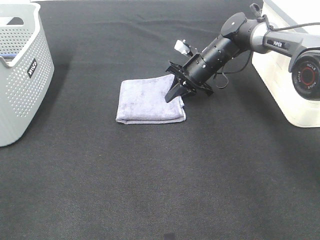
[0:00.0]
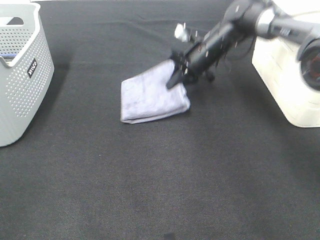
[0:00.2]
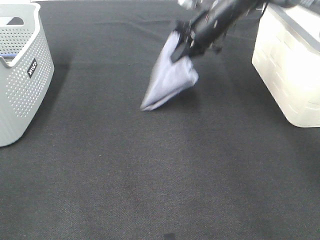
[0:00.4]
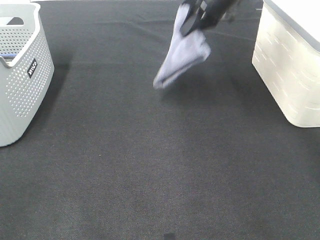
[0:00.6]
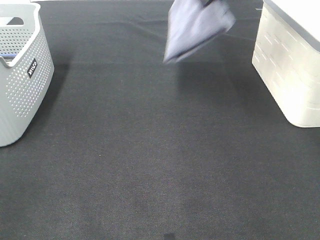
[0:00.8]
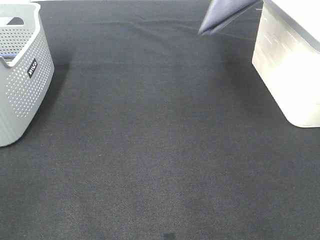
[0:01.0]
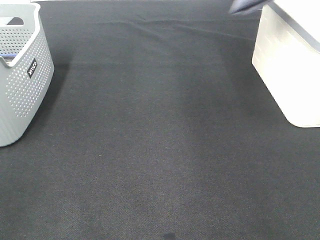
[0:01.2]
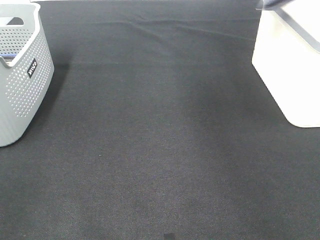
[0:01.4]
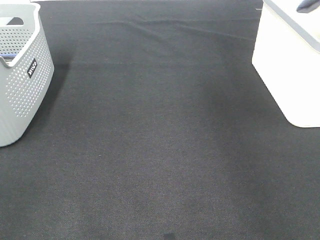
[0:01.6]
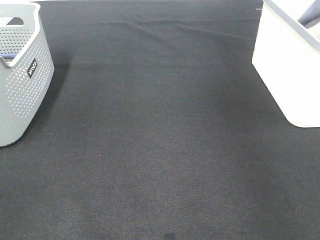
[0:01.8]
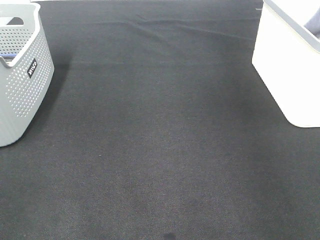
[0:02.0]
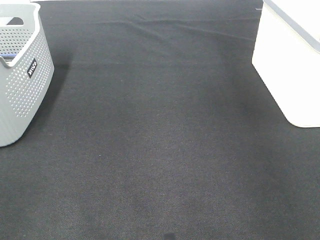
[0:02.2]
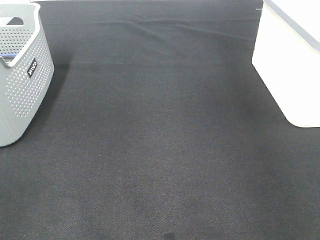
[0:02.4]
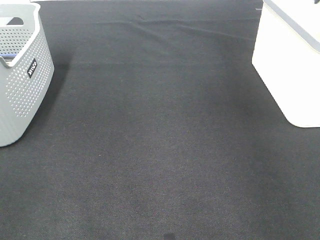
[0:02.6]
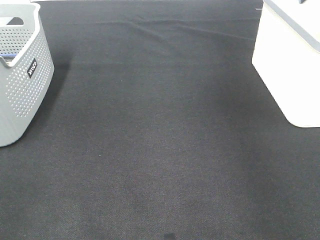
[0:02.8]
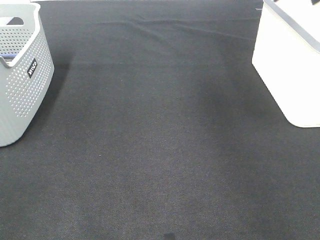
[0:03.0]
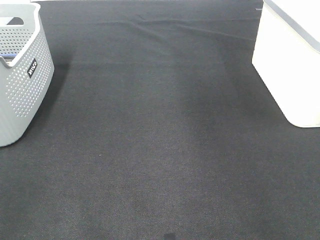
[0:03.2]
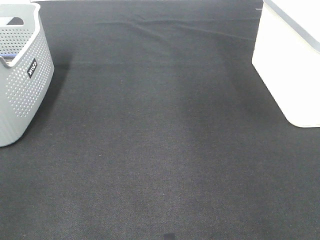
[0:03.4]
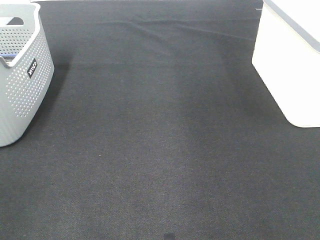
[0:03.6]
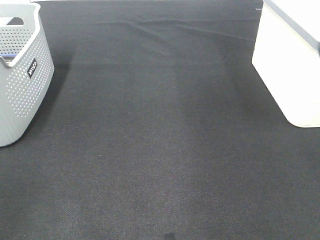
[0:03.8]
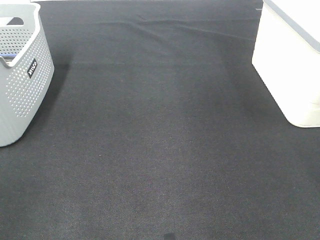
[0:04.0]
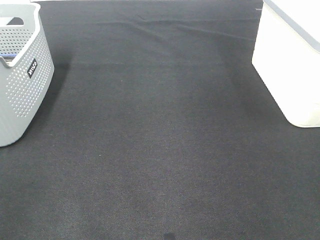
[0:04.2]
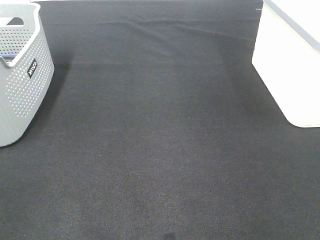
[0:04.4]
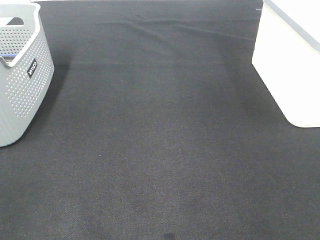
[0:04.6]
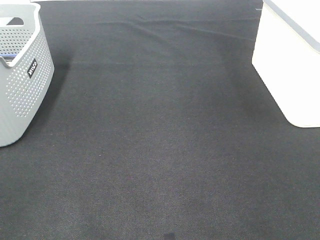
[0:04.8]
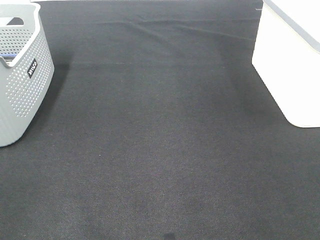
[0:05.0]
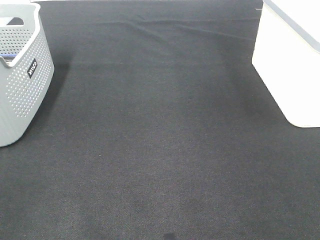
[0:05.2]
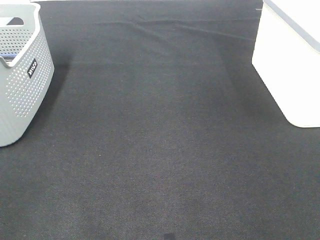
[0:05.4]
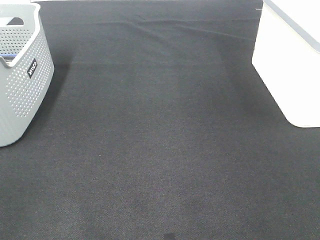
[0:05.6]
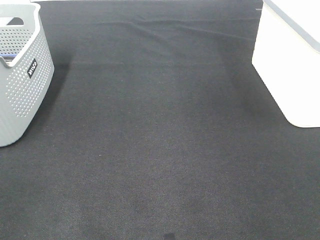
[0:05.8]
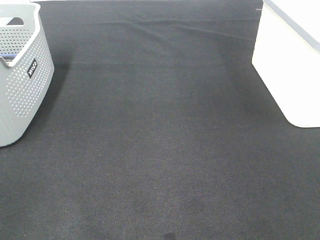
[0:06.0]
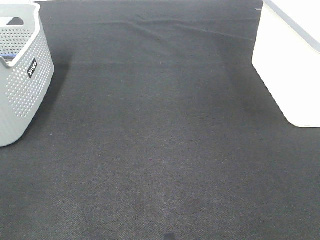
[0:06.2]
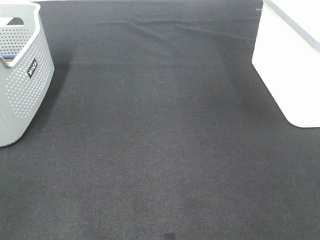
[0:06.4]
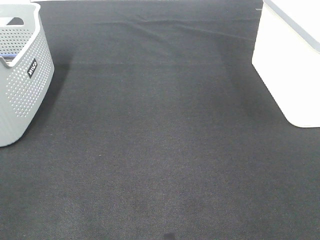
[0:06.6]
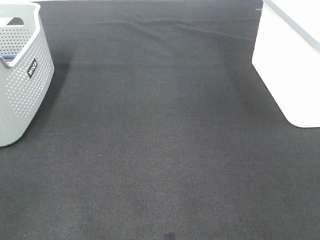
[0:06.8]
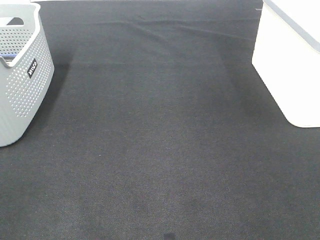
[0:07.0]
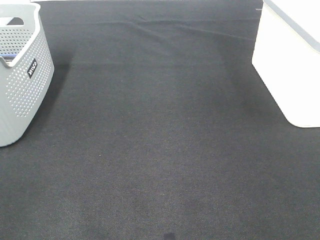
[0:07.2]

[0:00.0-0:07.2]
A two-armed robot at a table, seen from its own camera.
Step, 0:00.2 to 0:02.4: Right hand: place the grey towel in right basket.
0:00.0 to 0:01.4: The right gripper is displaced upward and to the right by approximately 40 cm.

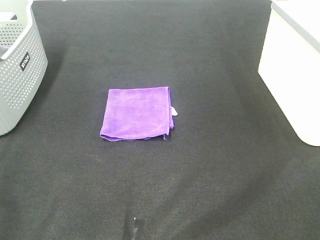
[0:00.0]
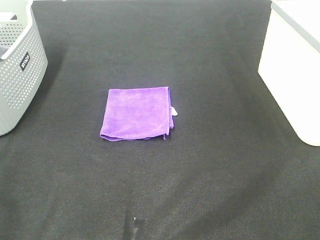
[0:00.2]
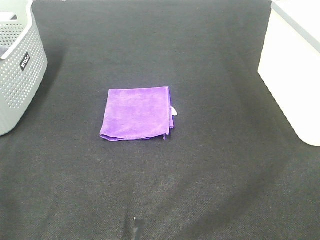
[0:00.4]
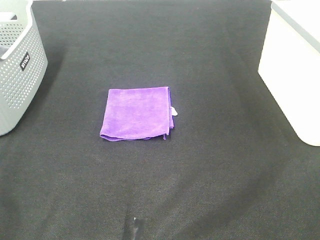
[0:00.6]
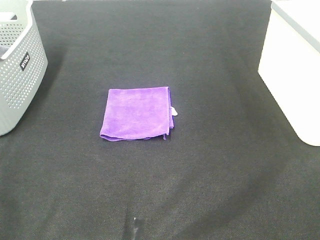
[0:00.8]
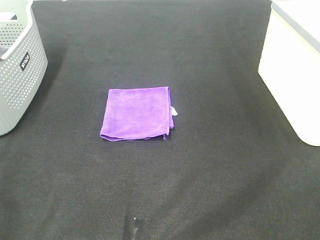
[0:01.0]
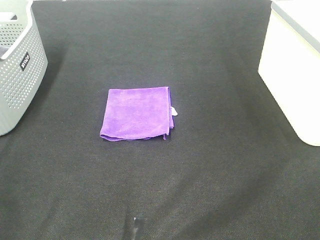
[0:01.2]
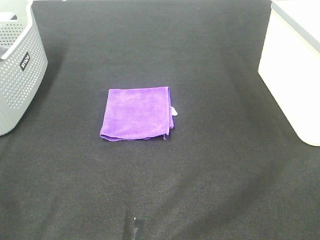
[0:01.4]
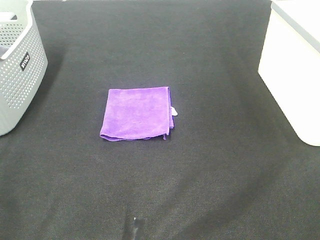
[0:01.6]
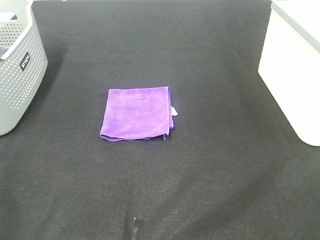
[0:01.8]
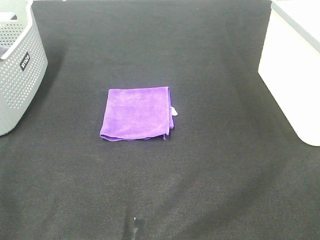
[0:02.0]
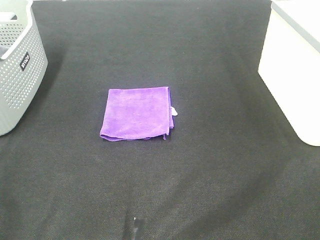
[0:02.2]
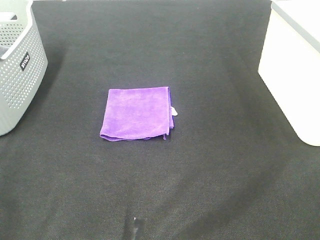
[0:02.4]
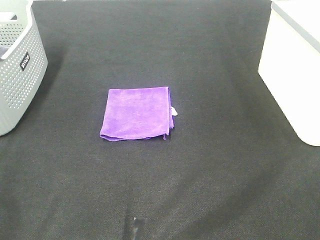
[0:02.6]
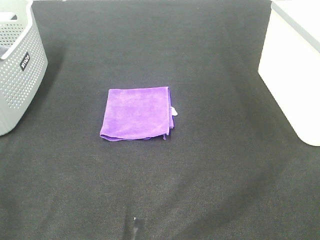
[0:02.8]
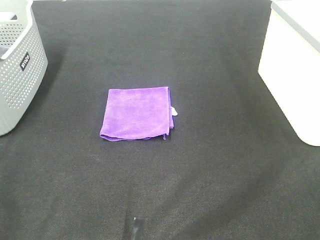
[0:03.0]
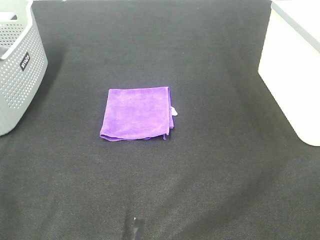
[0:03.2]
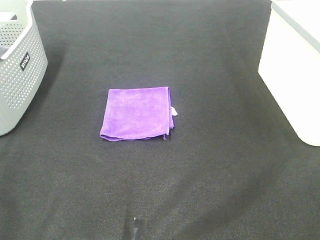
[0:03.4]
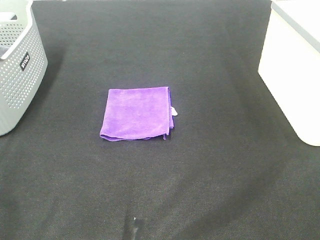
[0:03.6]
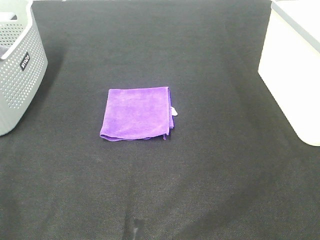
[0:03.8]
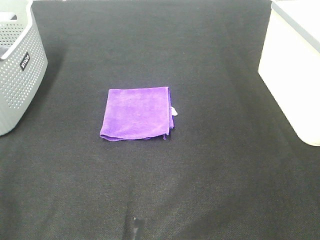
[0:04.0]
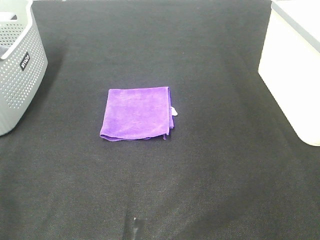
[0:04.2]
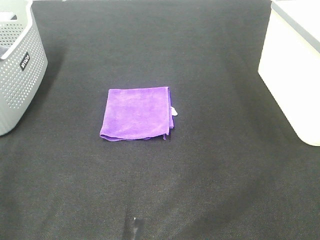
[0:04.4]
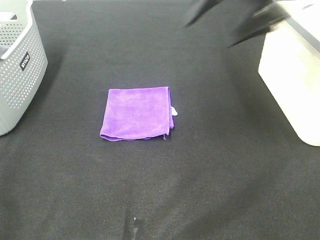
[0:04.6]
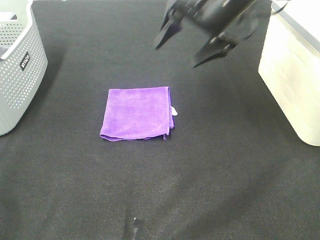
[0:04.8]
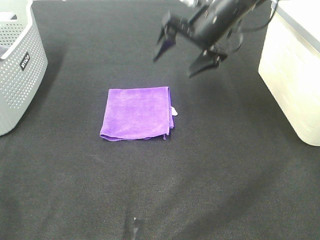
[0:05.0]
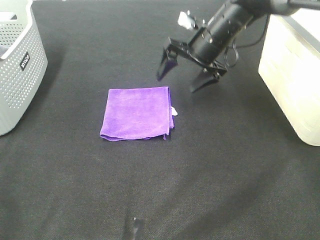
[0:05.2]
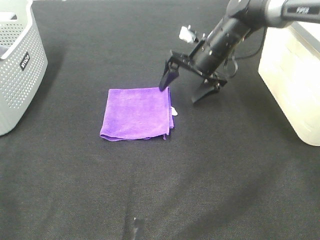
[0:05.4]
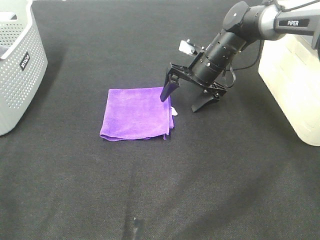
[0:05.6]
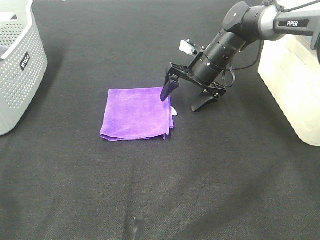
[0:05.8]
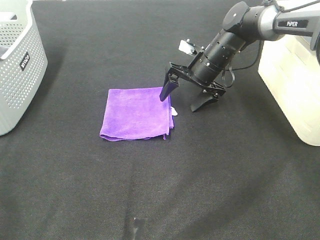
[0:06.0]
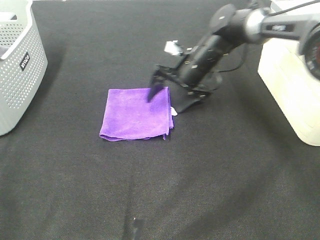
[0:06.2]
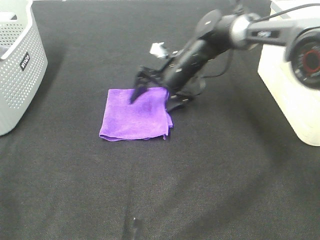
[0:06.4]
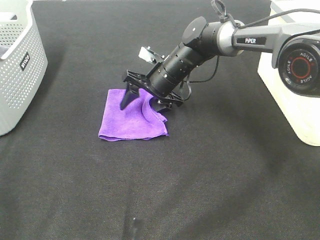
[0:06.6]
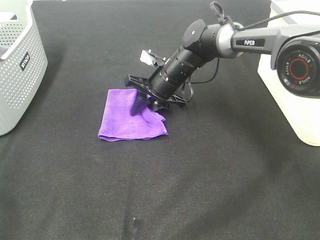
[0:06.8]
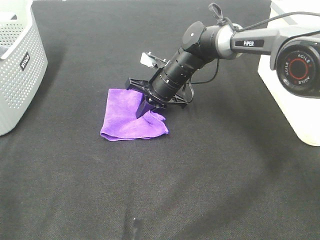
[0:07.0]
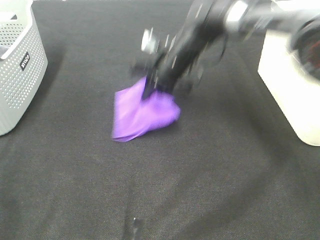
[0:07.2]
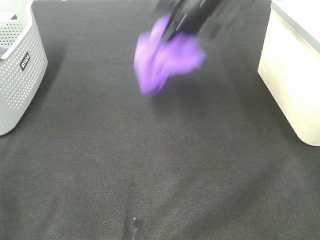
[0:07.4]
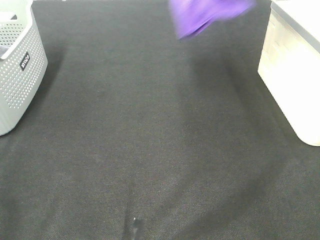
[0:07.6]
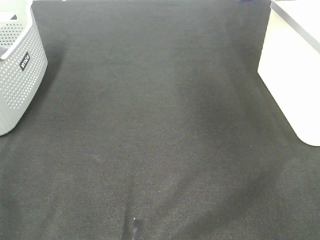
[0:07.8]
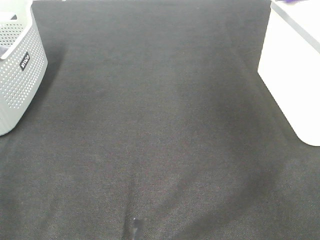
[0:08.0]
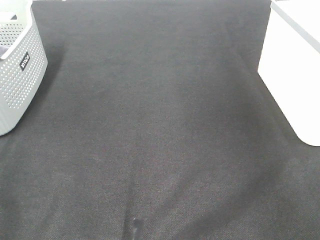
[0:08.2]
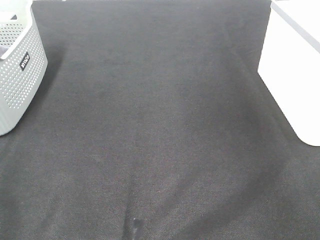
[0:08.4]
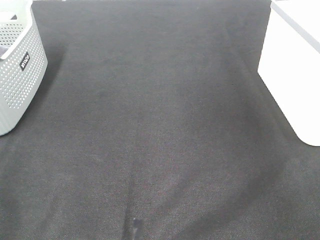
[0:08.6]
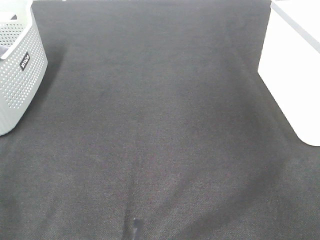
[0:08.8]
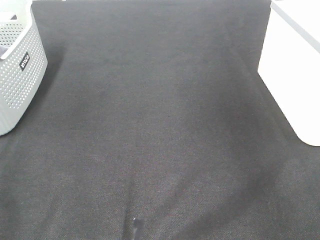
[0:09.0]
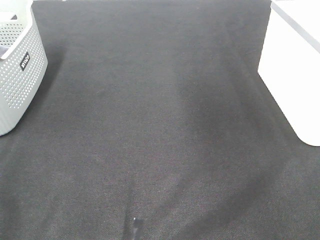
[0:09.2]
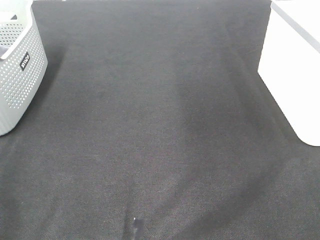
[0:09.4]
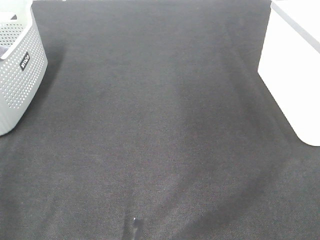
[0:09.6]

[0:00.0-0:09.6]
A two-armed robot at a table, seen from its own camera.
Step, 0:00.0 to 0:06.8: Right hand: grab the folded purple towel.
Step, 0:07.0 to 0:08.6: Right hand: place the purple towel in right basket.
0:00.0 to 0:03.2: Both grippers stay put.
0:03.2 to 0:04.8: The right gripper heads forward and to the left, covering approximately 50 cm.
0:04.8 to 0:06.4: The right gripper is displaced downward and to the left by roughly 15 cm.
0:06.4 to 0:08.0: The right gripper is displaced to the right and upward by about 40 cm, and closes its fingers.

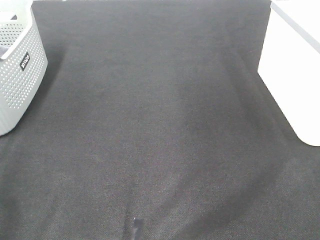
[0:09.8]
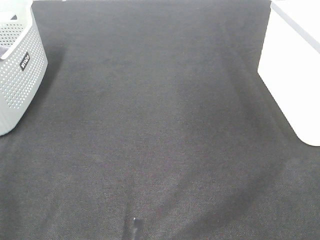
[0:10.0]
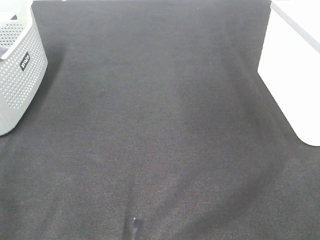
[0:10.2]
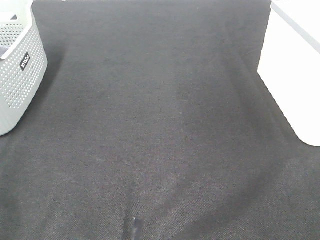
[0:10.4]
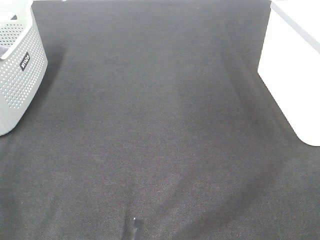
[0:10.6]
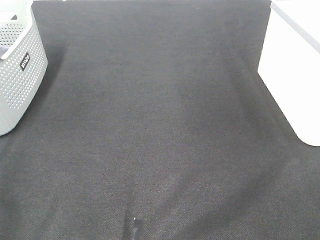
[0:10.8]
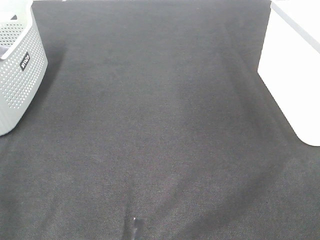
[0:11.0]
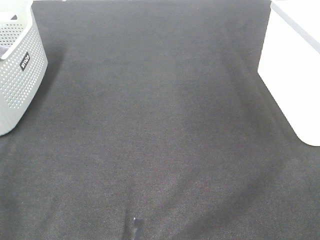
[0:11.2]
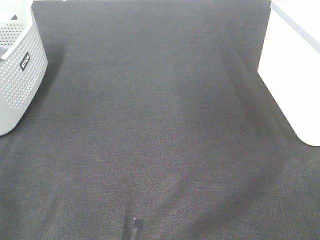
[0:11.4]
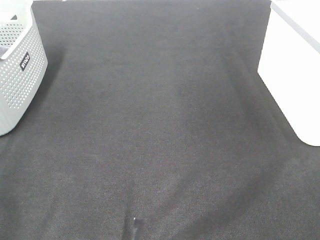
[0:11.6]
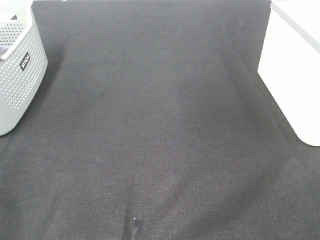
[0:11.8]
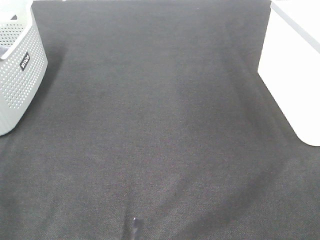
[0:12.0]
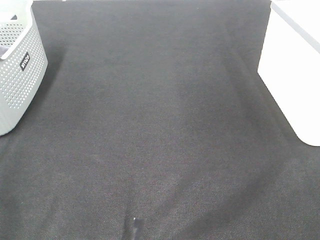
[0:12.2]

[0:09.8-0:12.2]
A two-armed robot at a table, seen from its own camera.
0:11.0 to 0:12.2: The two grippers keep their place.

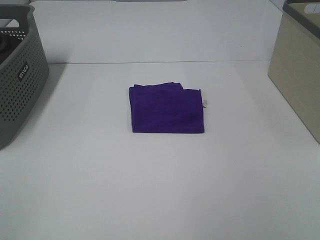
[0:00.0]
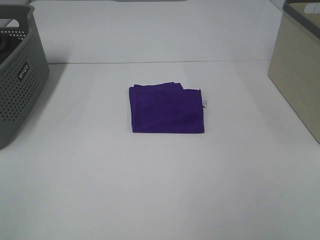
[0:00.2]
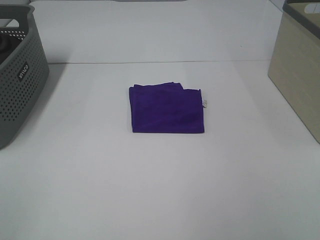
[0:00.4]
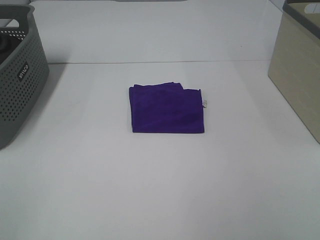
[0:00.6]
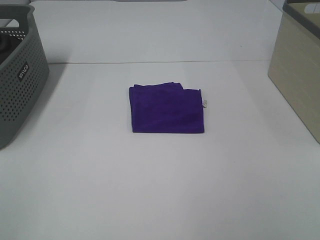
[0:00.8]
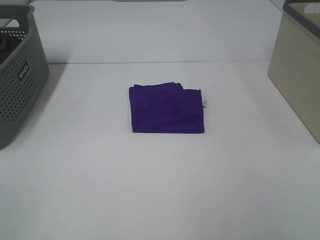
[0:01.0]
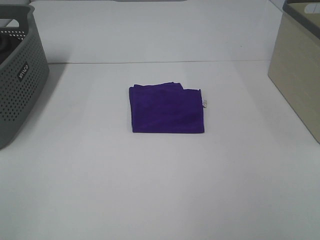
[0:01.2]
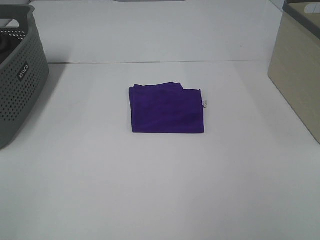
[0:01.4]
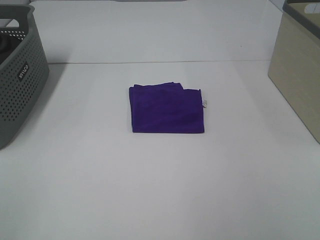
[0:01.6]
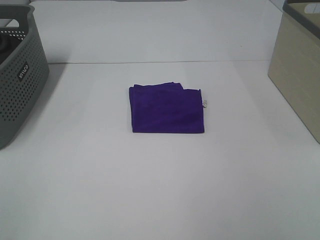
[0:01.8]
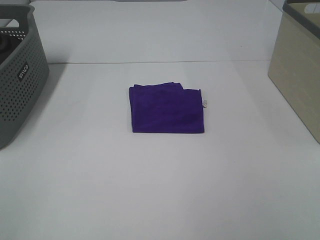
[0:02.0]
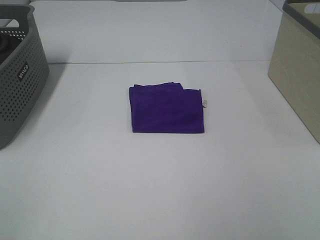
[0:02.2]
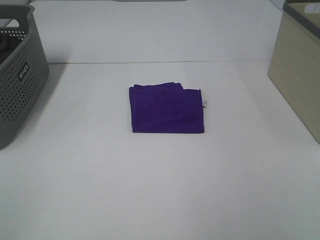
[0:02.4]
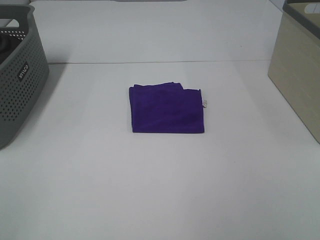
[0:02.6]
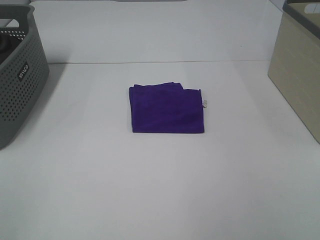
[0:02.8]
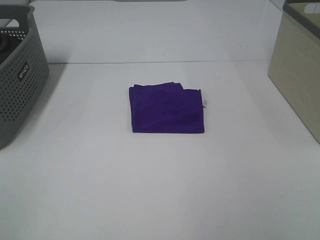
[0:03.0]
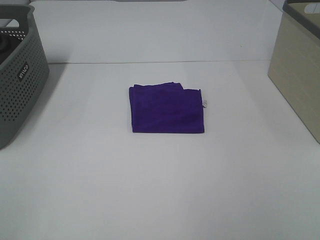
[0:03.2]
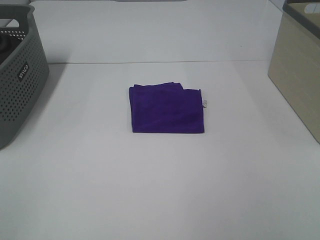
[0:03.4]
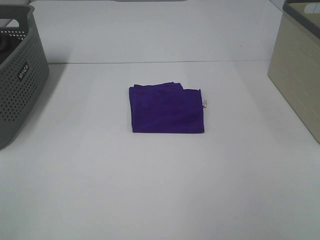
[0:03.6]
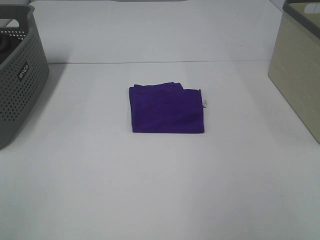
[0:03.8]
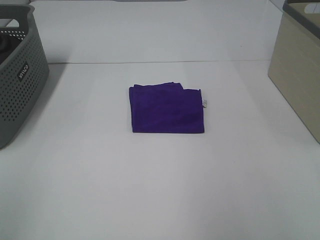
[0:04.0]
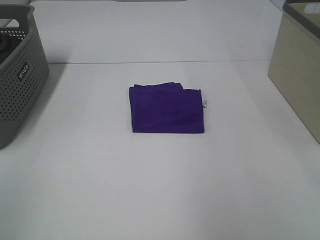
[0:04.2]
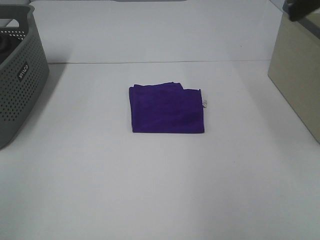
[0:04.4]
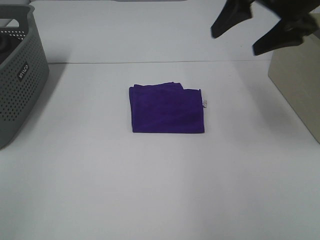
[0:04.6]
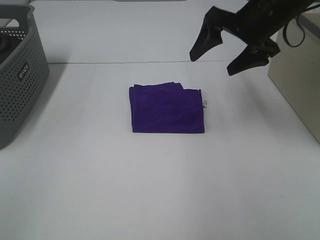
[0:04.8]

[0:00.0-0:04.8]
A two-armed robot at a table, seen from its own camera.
0:00.0 to 0:03.2: Neither gripper changes place.
0:03.2 to 0:04.8: The right gripper moves forward, roughly 40 cm.
